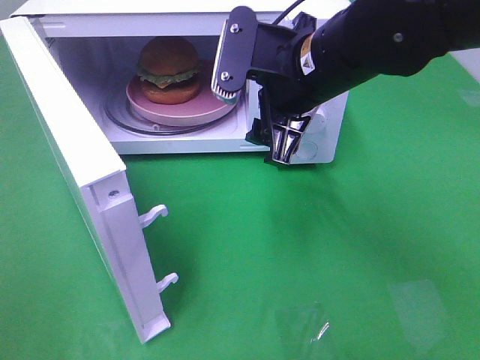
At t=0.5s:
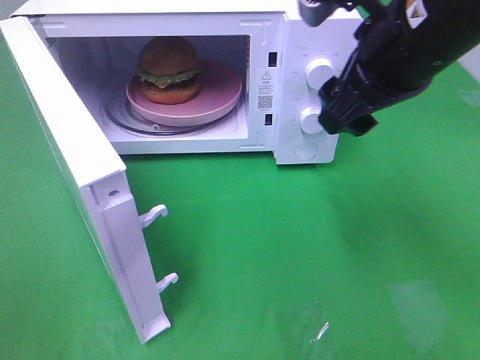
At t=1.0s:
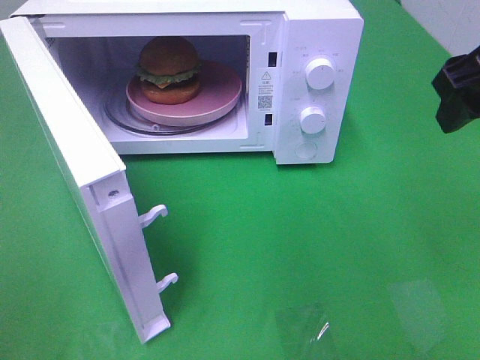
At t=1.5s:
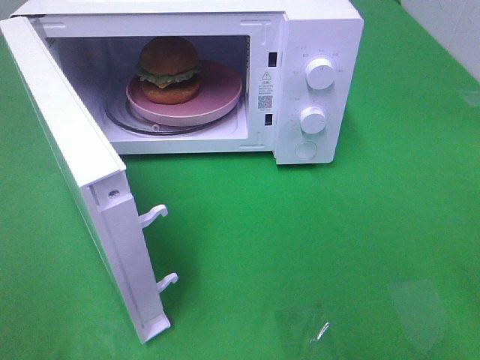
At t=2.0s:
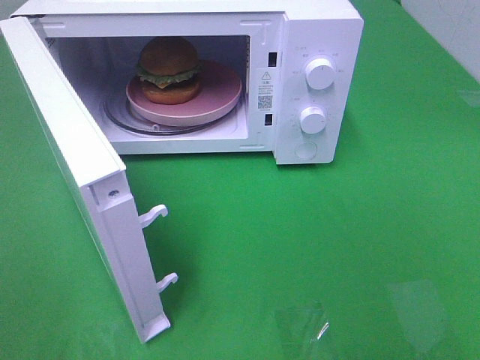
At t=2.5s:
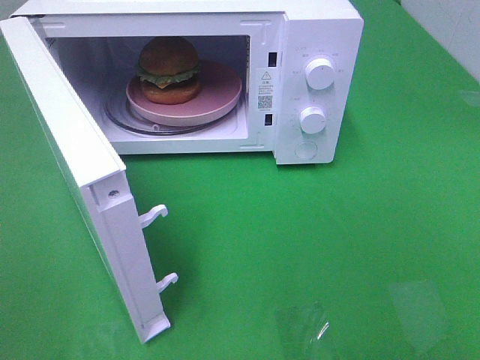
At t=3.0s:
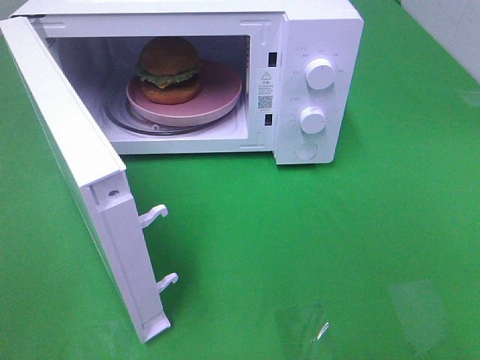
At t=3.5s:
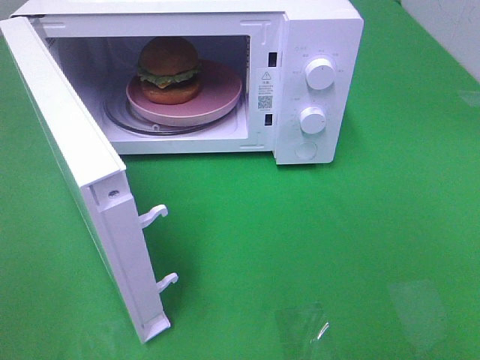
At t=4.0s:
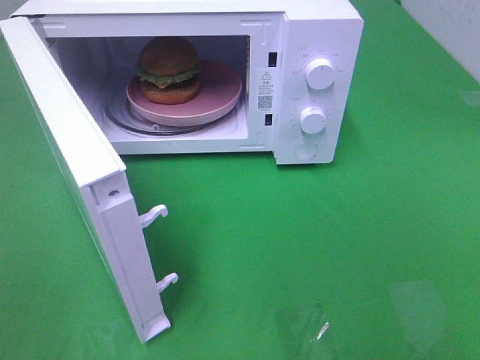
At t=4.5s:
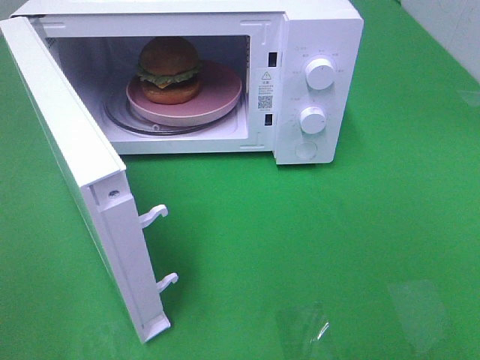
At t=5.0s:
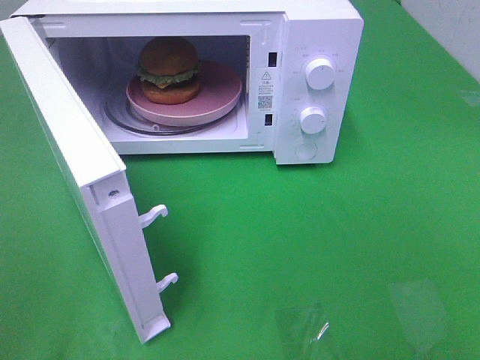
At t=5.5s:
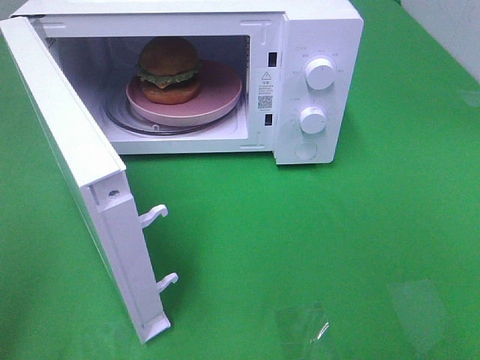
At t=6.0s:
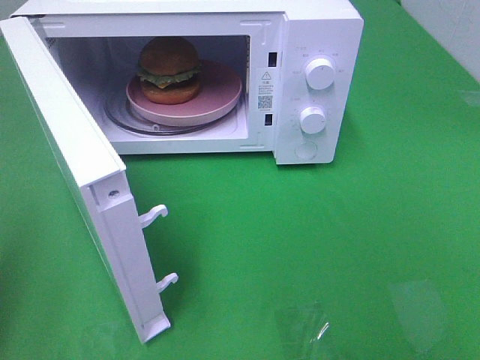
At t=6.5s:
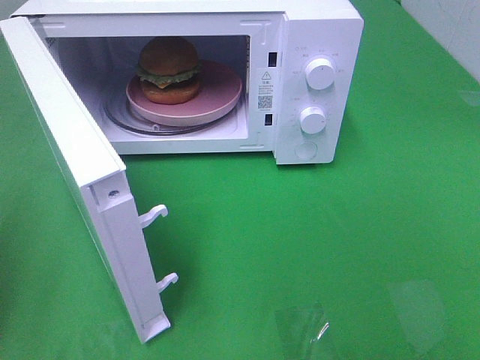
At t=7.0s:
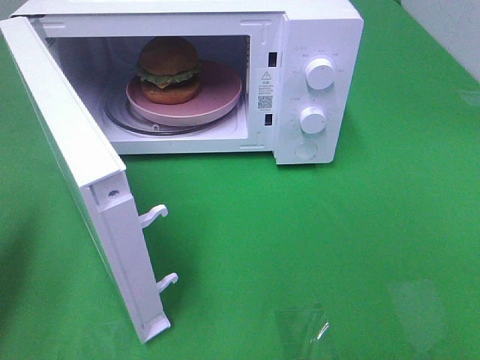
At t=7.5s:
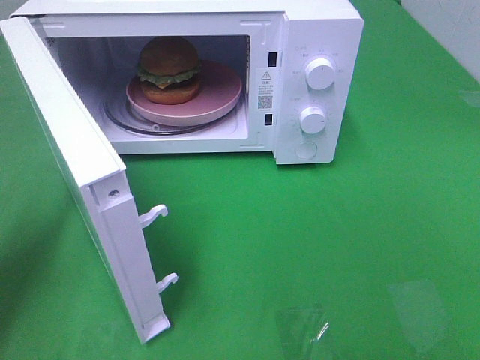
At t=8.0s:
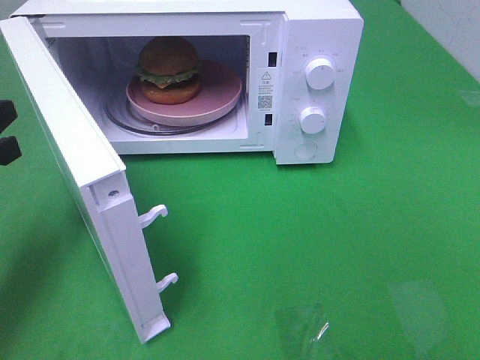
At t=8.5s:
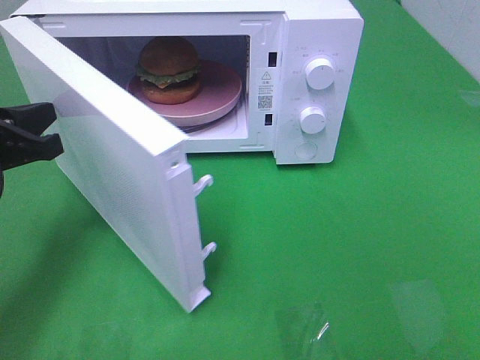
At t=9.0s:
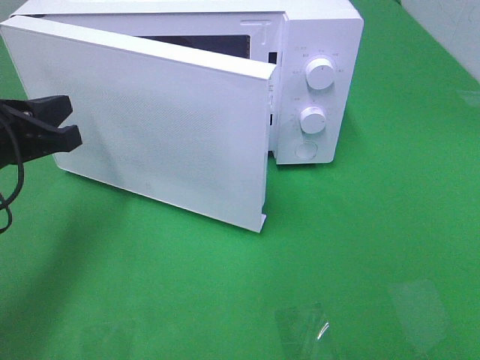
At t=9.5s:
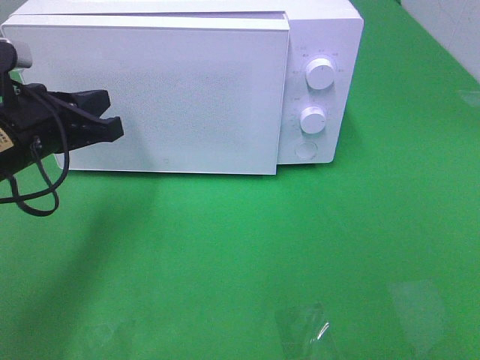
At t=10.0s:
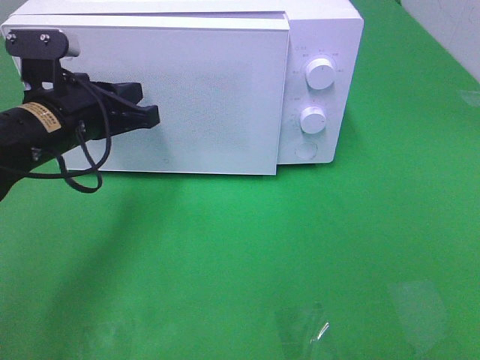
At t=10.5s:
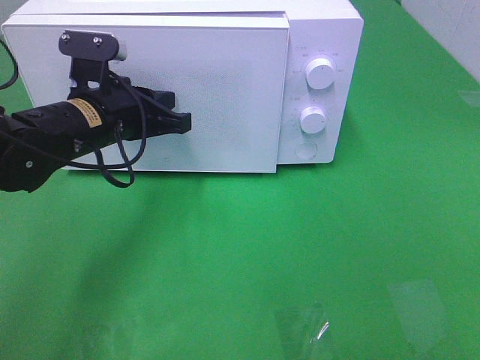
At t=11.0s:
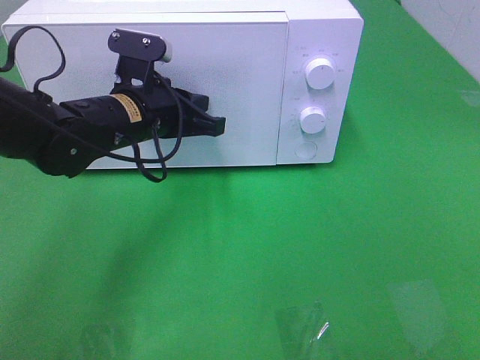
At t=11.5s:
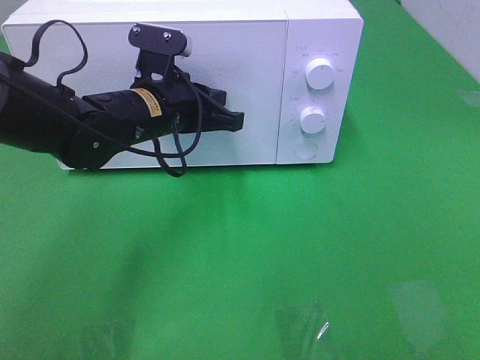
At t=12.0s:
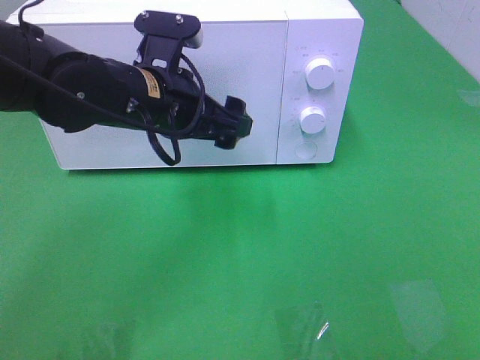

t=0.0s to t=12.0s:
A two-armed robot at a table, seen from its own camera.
Task of the whole recording: Heat the burger.
Step, t=0.0s to t=11.5s: Left hand: close the microwave door.
t=0.0s to t=2.0s: The right gripper heads backward and to the right, covering approximately 30 cm.
t=6.0s to t=8.0s: The left gripper heads forward and downward, covering approximately 15 cm.
t=8.0s to t=10.0s: The left gripper goes some 15 cm to the right and forward.
t=10.0s to t=12.0s: The left gripper is displaced to the right by about 10 cm, and opens up.

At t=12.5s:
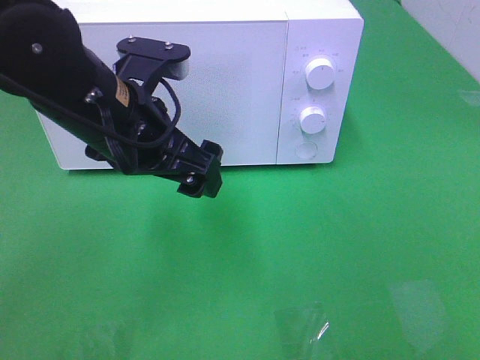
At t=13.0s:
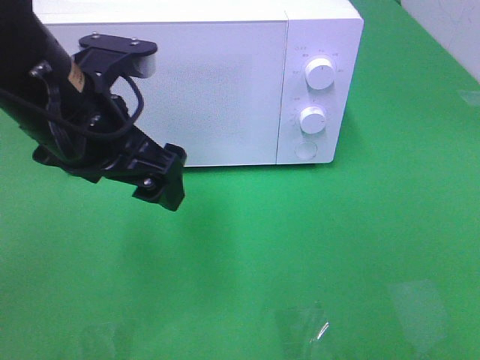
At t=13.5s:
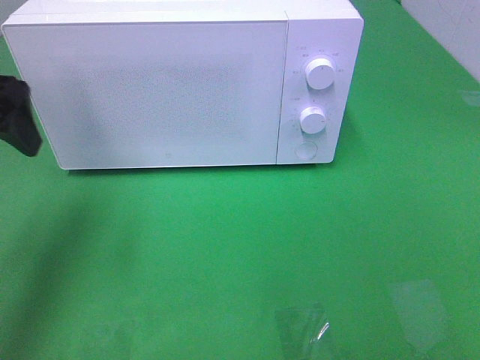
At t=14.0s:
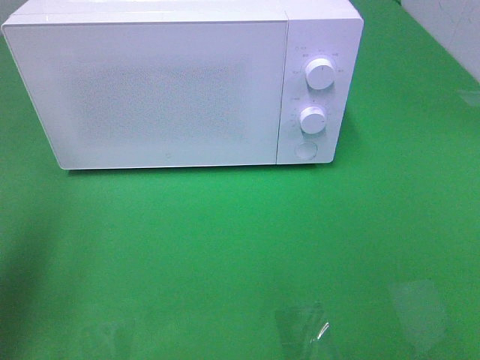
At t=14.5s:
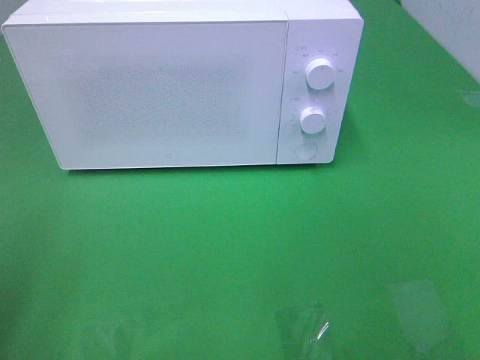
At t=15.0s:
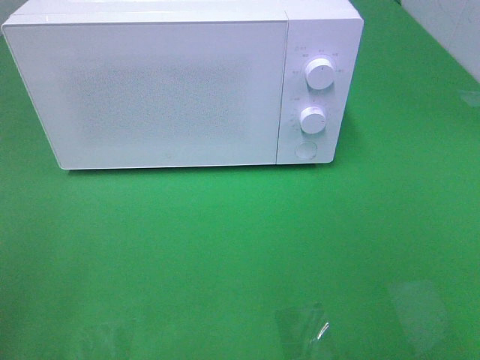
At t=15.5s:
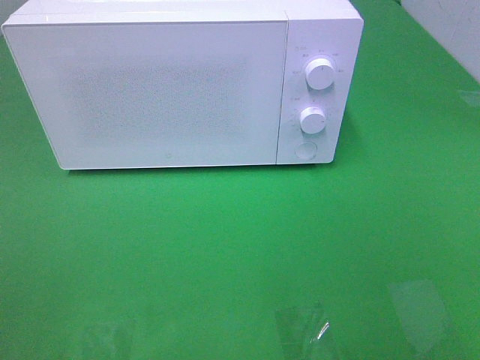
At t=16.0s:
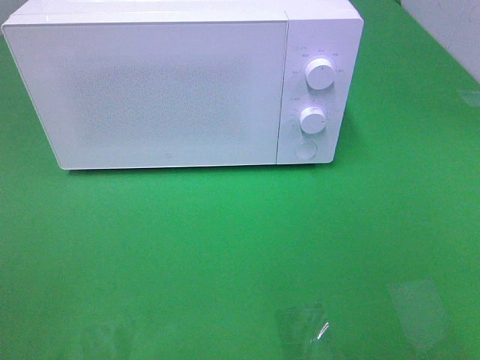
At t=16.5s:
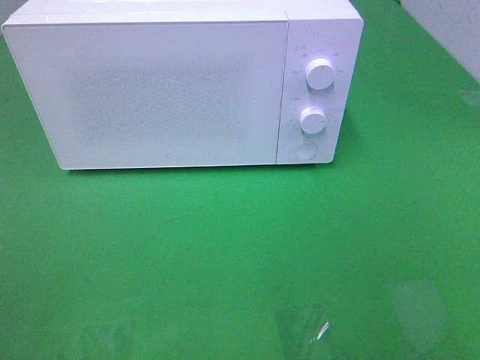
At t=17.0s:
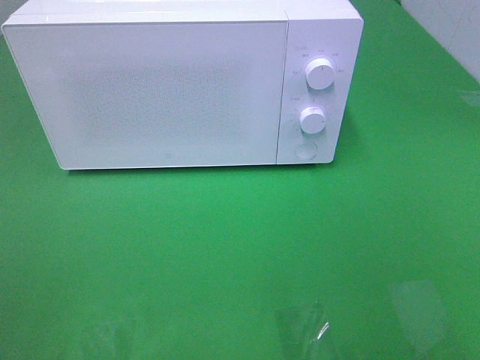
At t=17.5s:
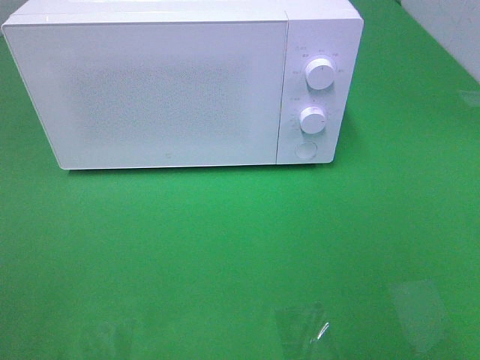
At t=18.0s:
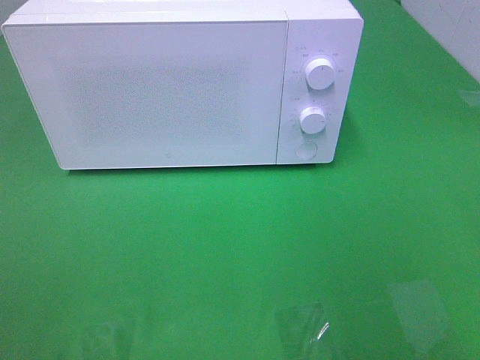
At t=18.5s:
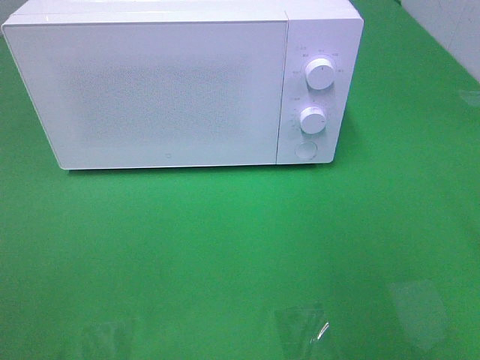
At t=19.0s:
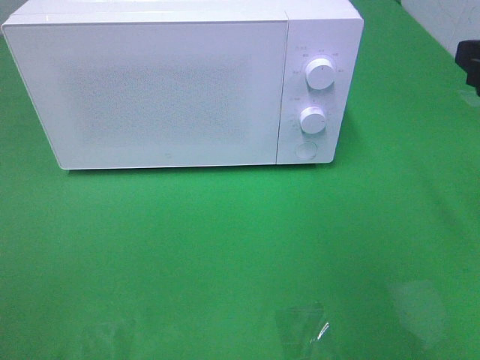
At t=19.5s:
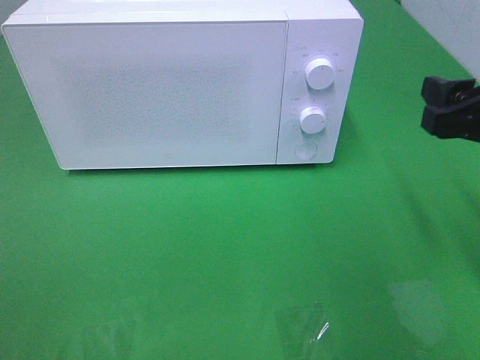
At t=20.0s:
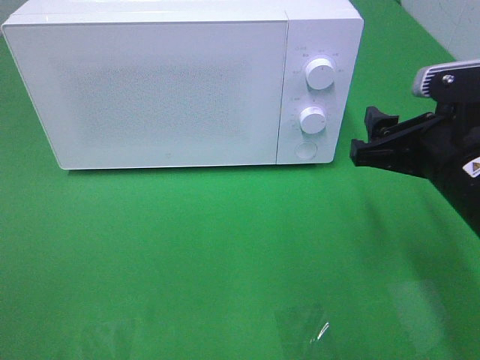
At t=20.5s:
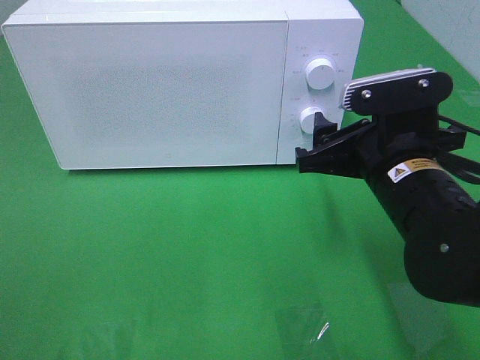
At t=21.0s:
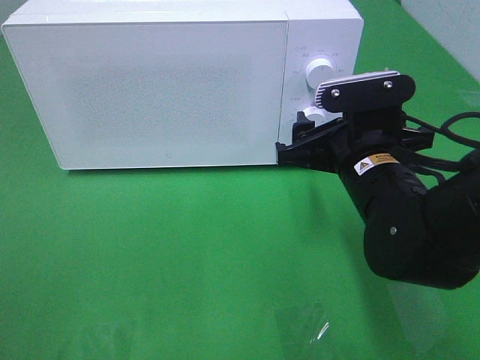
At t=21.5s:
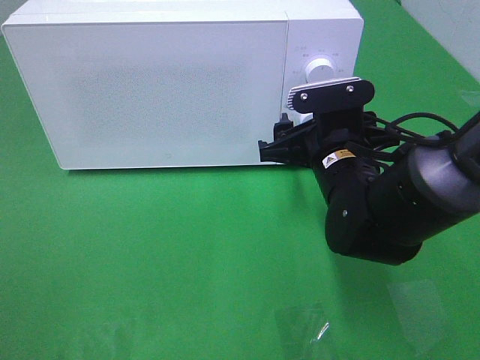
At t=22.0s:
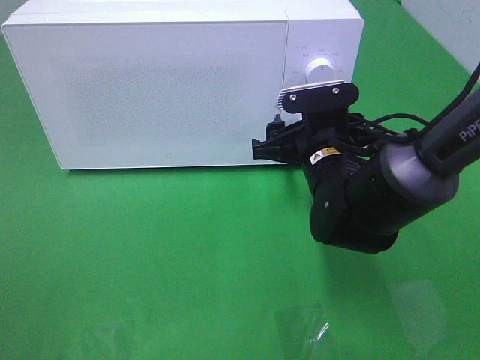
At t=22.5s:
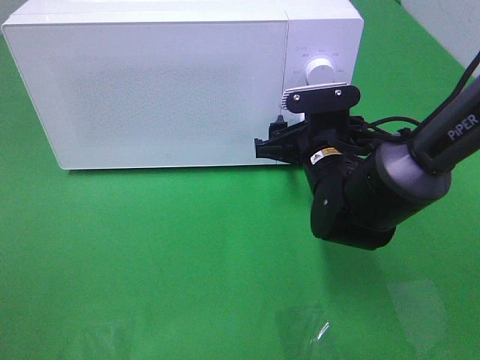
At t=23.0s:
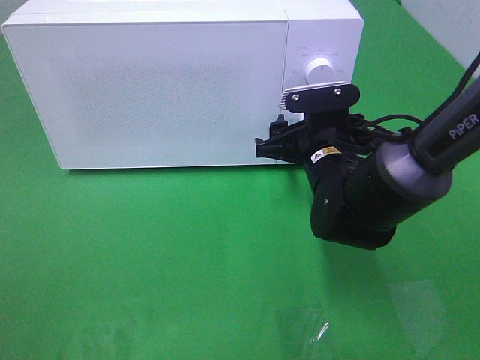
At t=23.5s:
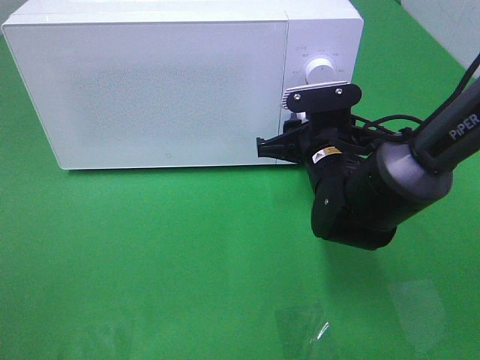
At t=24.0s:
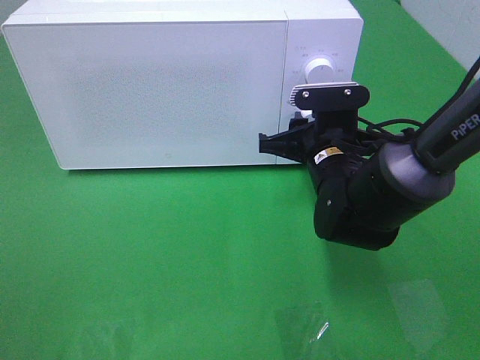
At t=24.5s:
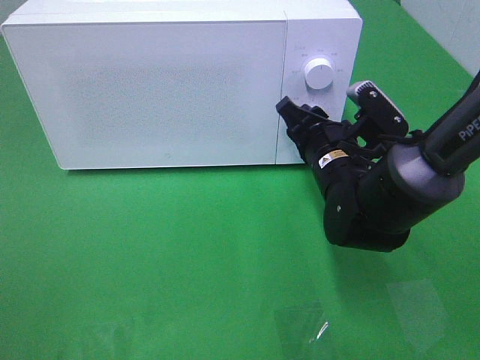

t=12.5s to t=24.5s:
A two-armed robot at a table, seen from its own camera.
Task of the whole recording: Heat the burger.
t=12.5s to t=14.5s: The left gripper moves to the left and backward, some 30 cm.
t=18.5s to t=20.5s: The right gripper is displaced downward, to the left and forward by approximately 20 cm.
t=20.5s to t=22.5s: The right gripper goes approximately 10 cm forward and downward.
t=22.5s to t=24.5s: The right gripper closes.

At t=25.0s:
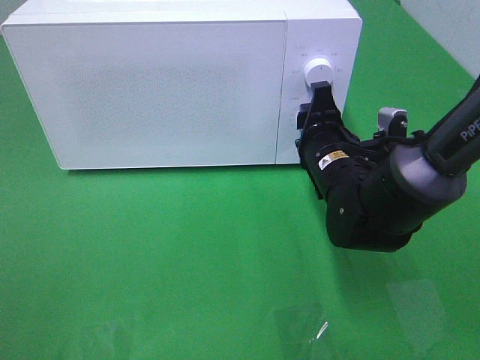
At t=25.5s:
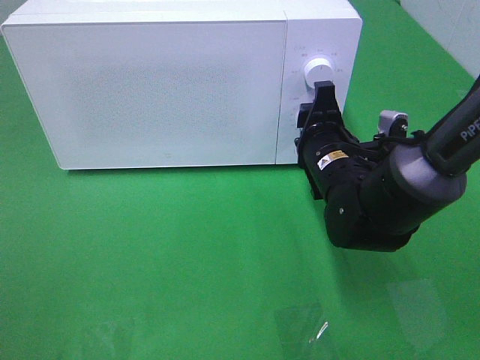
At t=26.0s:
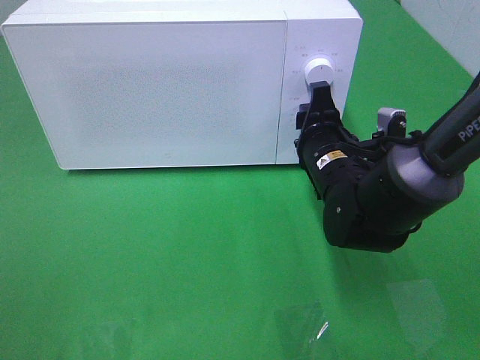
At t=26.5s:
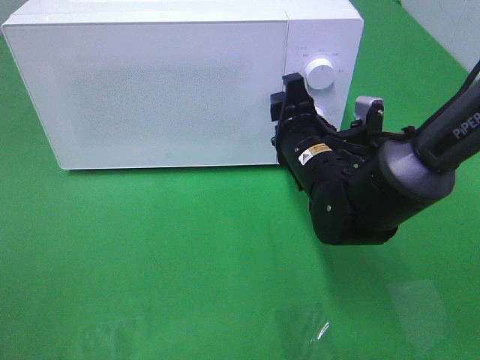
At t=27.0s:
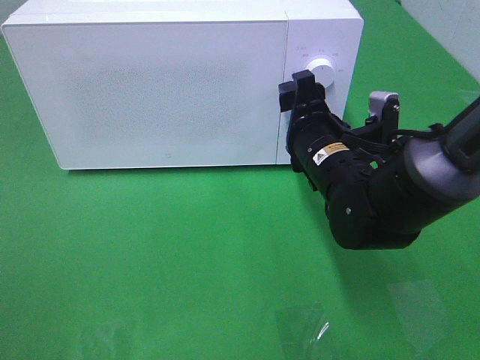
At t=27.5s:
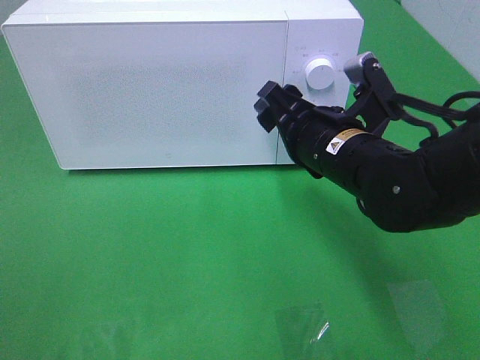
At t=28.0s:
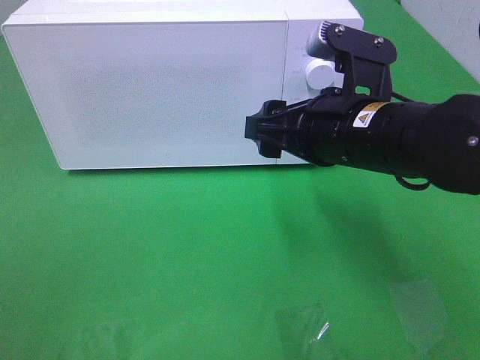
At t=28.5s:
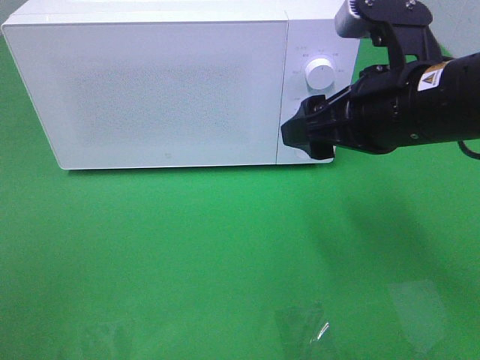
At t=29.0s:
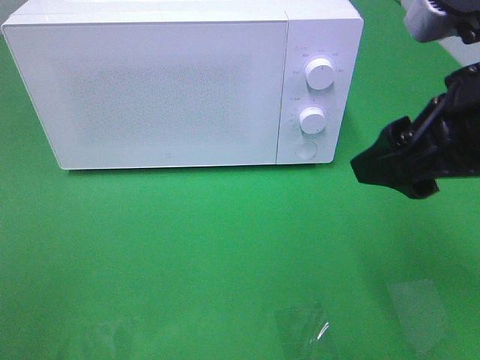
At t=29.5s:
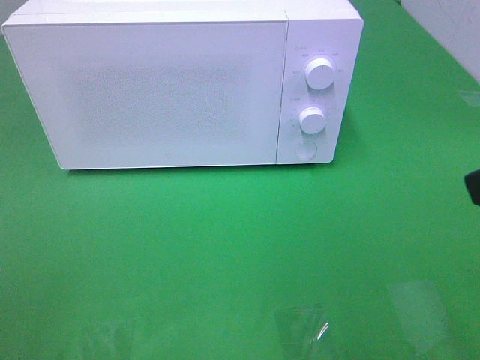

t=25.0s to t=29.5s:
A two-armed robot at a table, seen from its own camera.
Task of the whole recording: Heat the burger.
t=25.0s to t=27.0s: The grippers make only small movements.
t=27.0s to t=29.5s: The right gripper moves backward, upward and to the right, about 30 cm.
